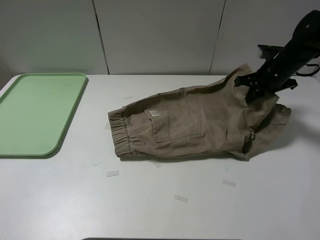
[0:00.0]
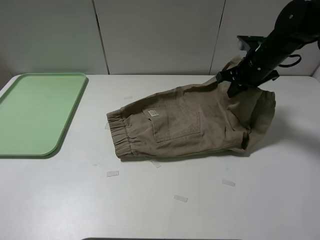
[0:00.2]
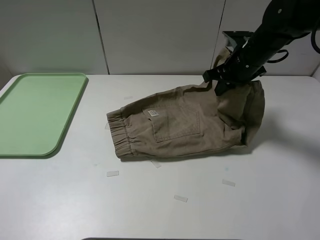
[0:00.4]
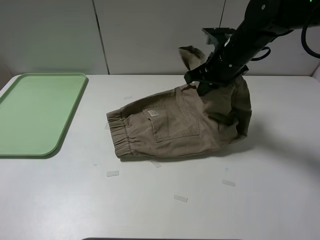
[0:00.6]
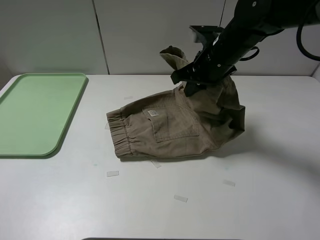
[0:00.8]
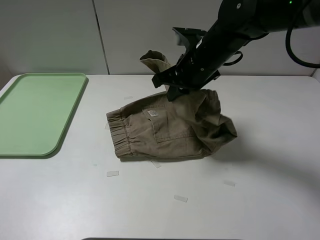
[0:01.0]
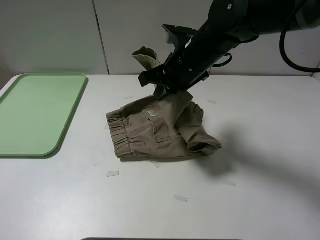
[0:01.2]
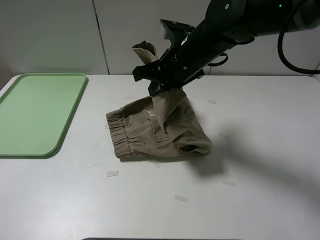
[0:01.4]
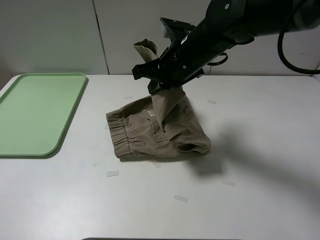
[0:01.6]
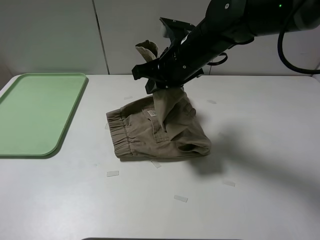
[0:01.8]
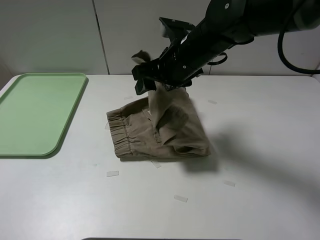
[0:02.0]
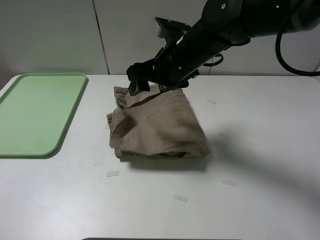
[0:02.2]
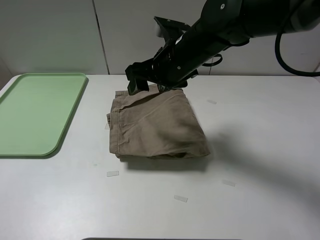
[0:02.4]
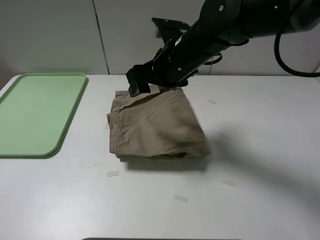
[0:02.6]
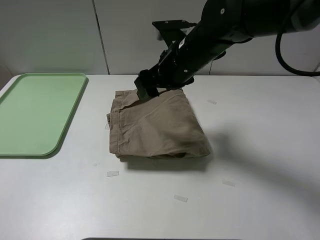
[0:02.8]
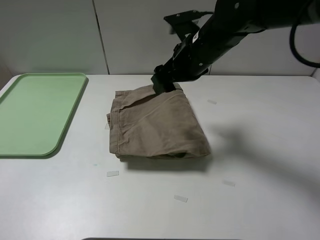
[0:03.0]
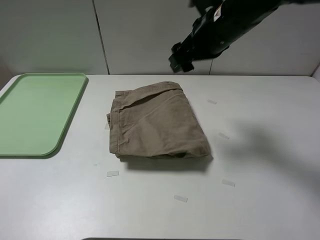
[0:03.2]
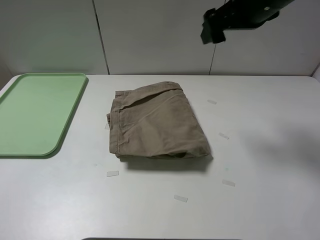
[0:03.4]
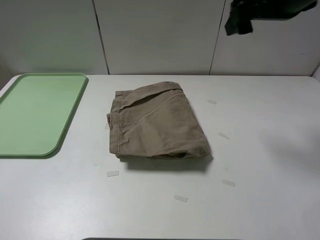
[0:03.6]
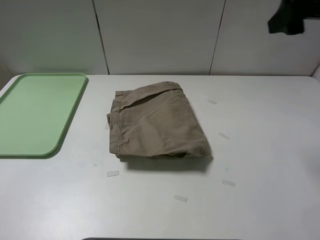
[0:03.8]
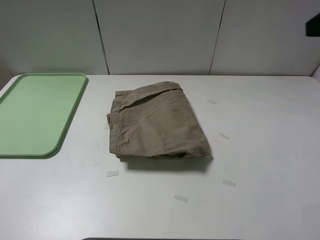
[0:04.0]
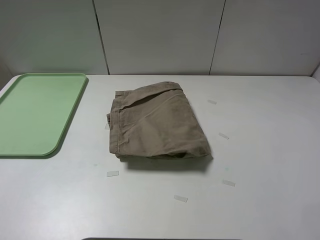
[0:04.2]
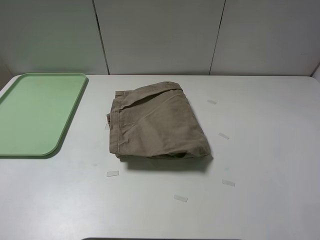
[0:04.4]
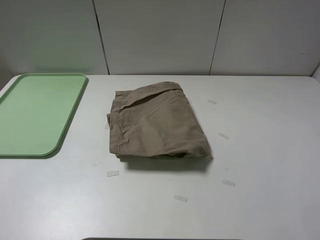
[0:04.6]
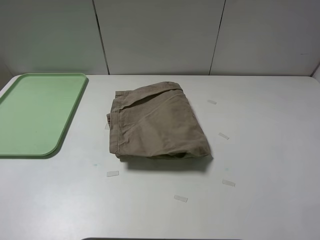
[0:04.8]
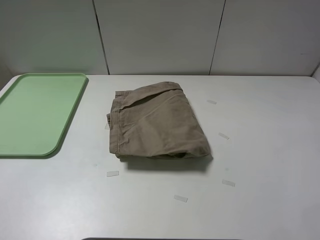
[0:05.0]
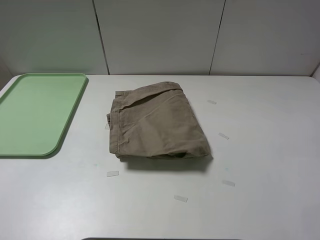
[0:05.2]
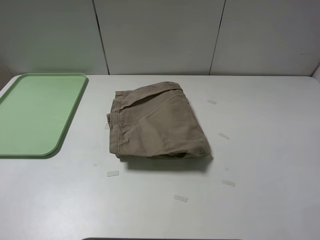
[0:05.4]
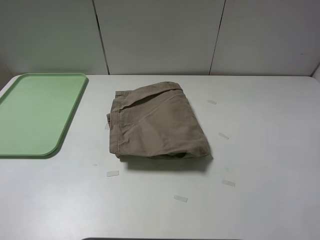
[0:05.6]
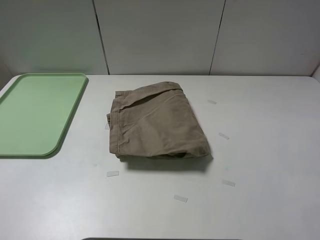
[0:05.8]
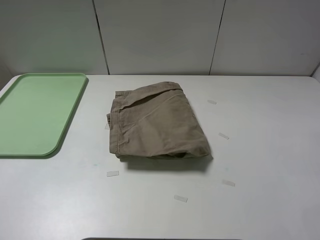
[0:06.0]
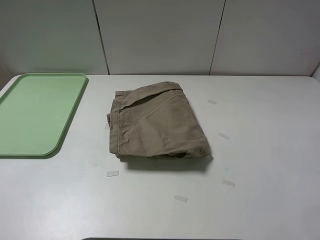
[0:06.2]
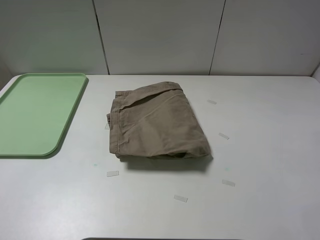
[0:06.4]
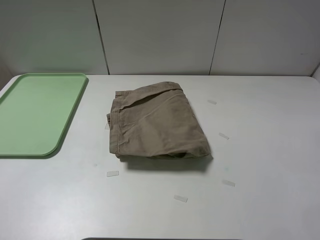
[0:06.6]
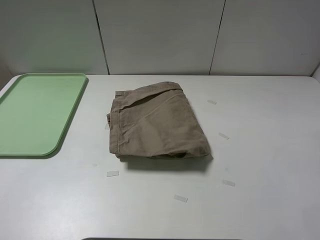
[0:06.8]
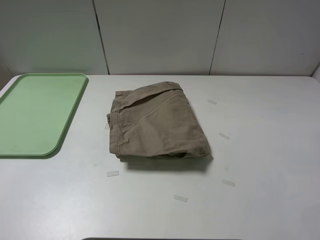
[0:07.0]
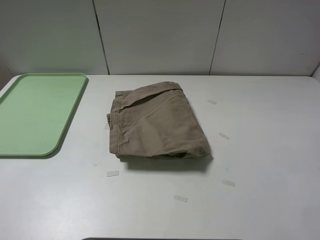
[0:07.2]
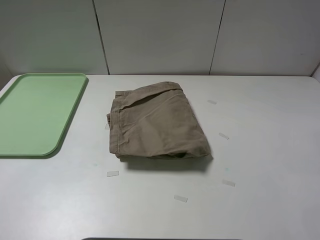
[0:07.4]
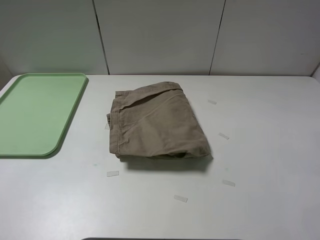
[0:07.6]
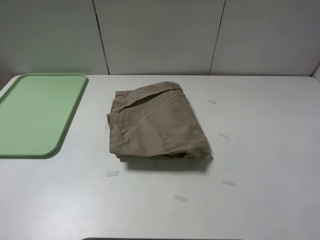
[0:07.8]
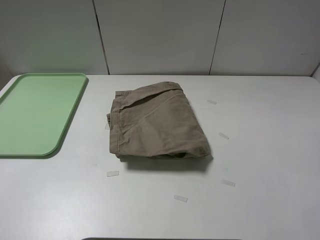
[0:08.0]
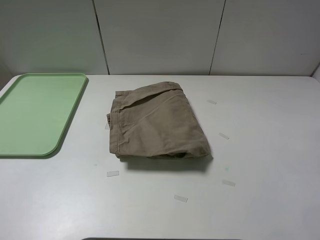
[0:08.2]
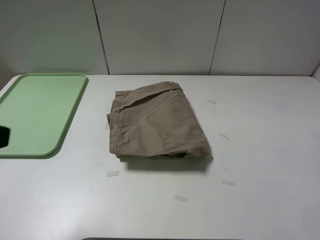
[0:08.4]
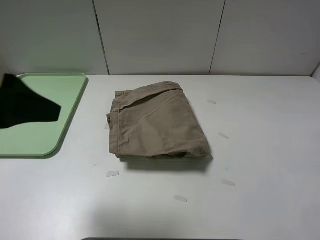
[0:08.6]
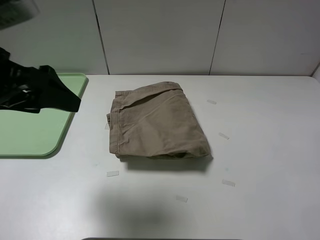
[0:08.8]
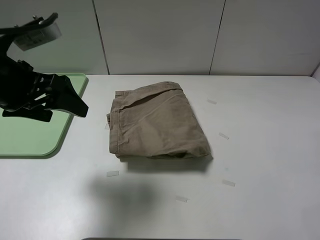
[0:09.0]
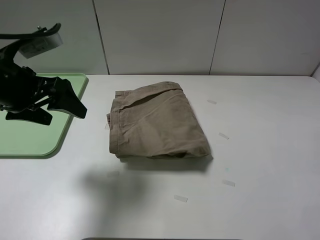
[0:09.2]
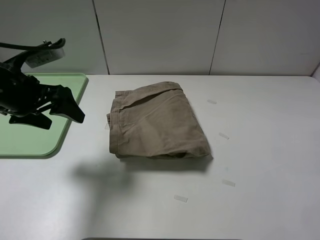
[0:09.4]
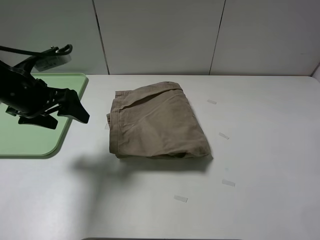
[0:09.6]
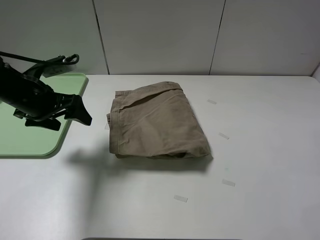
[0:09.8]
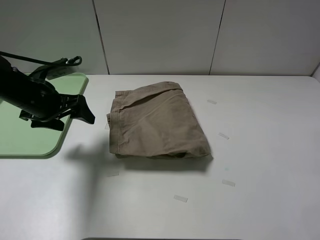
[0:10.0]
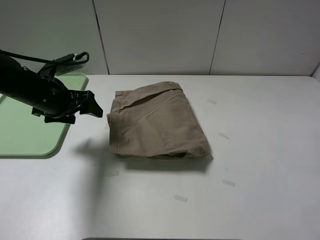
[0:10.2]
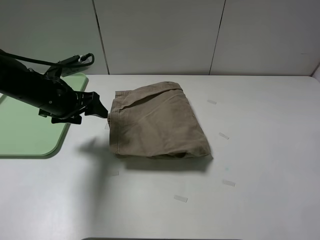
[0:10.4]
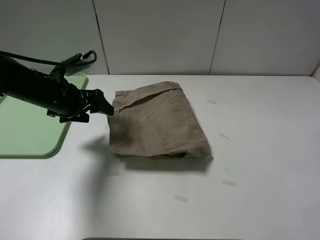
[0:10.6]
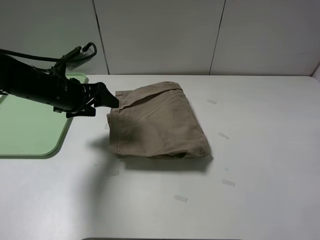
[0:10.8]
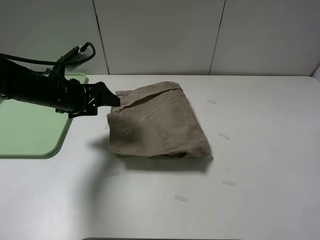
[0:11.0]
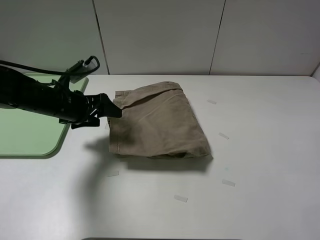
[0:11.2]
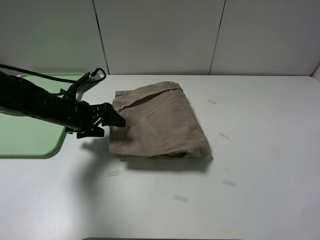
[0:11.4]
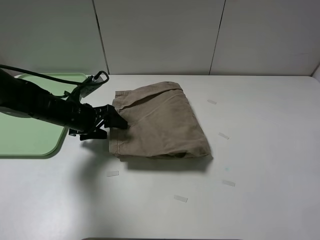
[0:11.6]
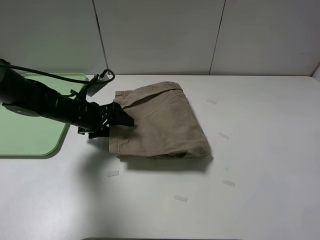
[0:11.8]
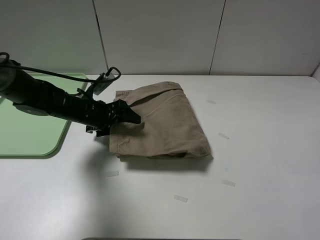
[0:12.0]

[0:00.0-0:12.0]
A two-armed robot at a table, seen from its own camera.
Task of the whole recording: fold the khaki jeans in half with two grippers, then fold them in half again, and use the left claw to place the folded fold khaki jeans on the tray.
Step, 0:00.0 to 0:02.2: Fold the khaki trousers from right to left with the right gripper.
0:00.0 to 0:01.6: The right gripper heads to the left, covering approximately 20 cm.
0:01.6 to 0:03.0: The right gripper opens.
0:03.0 to 0:04.4: The right gripper goes about 35 cm backward, to the right and upward.
0:06.0 to 0:07.6: Neither gripper changes place.
0:07.6 to 0:09.0: The left gripper moves forward, some 25 cm.
0:09.0 to 0:10.4: The left gripper is displaced downward and forward by roughly 15 cm.
0:10.4 to 0:12.0: The left gripper heads downward, covering about 10 cm.

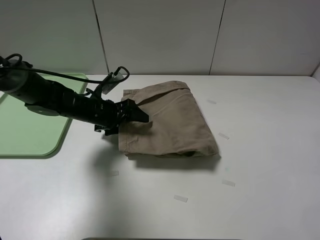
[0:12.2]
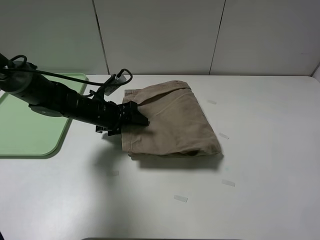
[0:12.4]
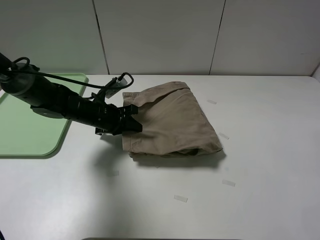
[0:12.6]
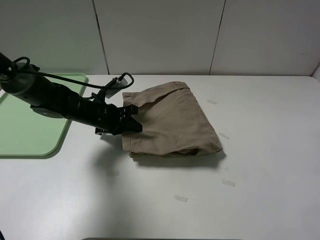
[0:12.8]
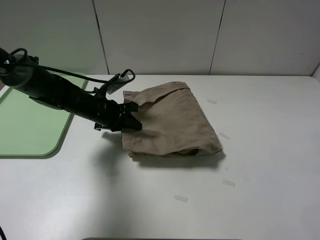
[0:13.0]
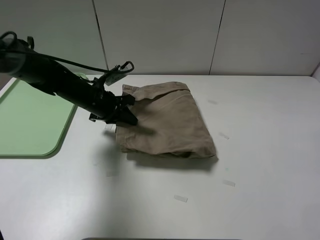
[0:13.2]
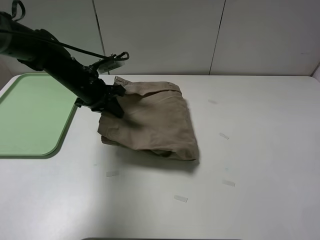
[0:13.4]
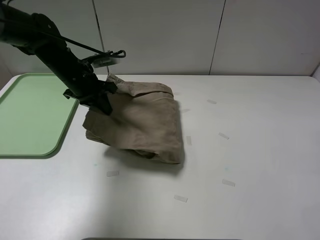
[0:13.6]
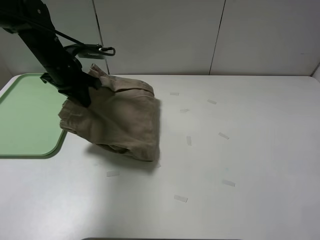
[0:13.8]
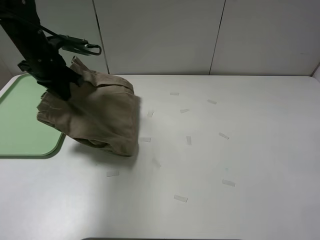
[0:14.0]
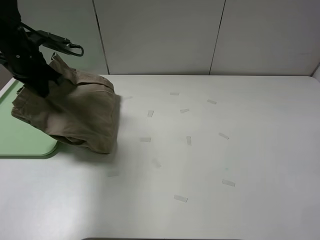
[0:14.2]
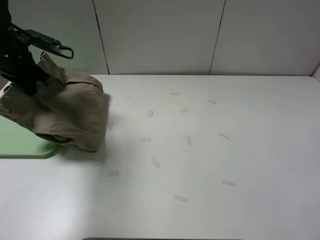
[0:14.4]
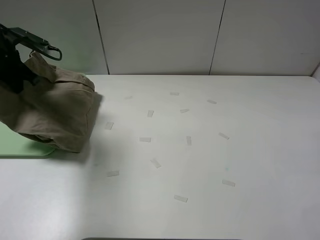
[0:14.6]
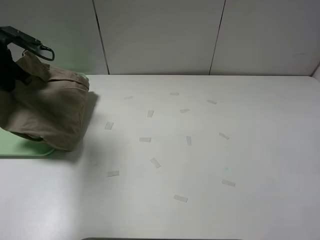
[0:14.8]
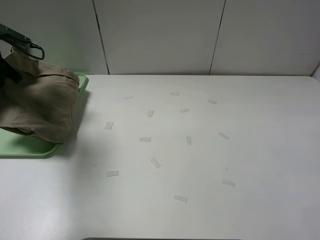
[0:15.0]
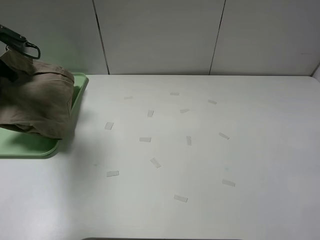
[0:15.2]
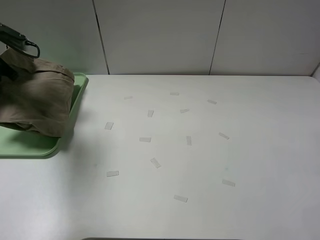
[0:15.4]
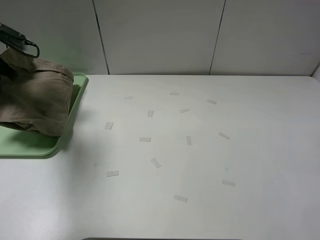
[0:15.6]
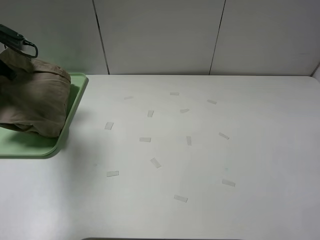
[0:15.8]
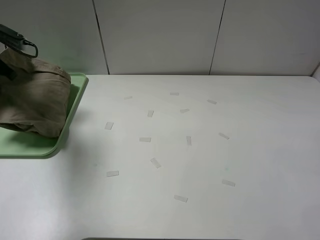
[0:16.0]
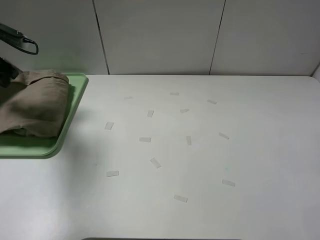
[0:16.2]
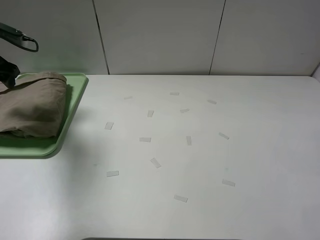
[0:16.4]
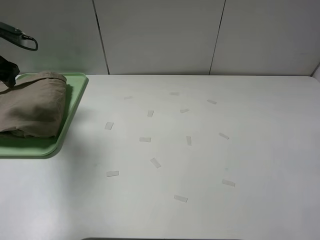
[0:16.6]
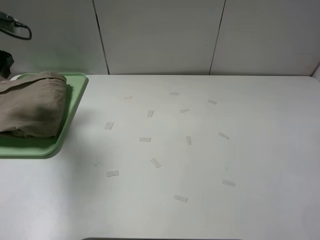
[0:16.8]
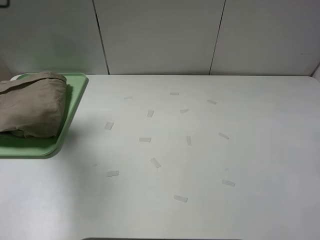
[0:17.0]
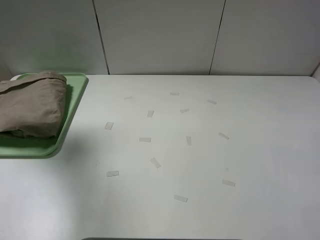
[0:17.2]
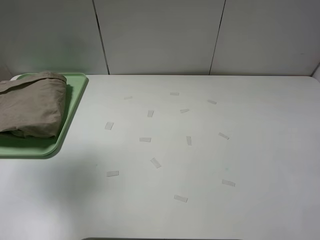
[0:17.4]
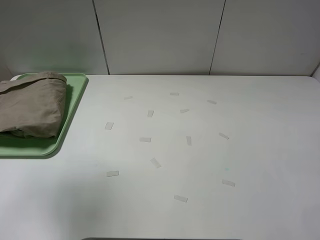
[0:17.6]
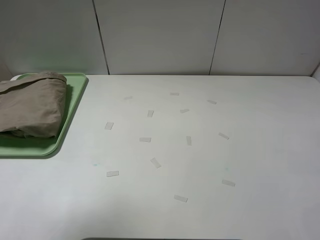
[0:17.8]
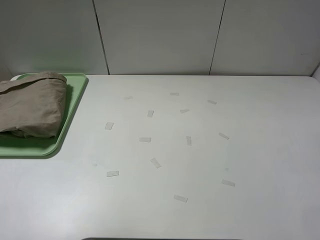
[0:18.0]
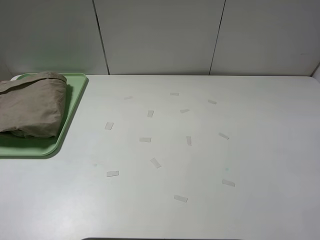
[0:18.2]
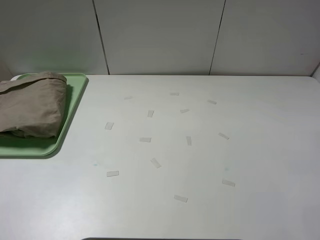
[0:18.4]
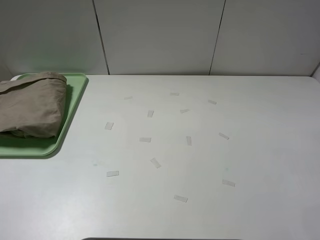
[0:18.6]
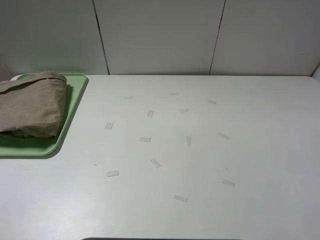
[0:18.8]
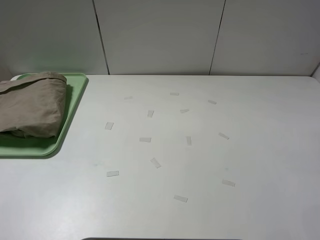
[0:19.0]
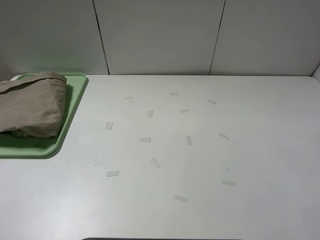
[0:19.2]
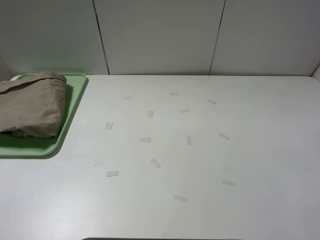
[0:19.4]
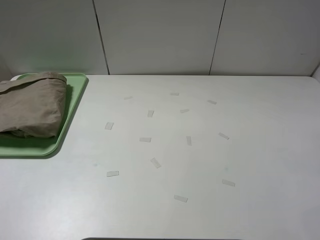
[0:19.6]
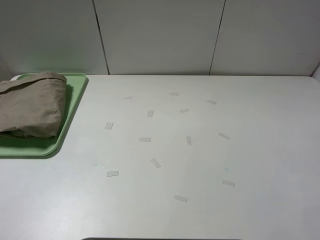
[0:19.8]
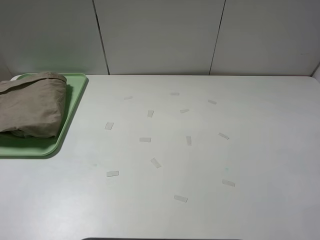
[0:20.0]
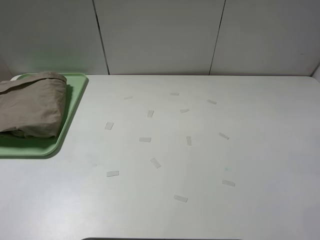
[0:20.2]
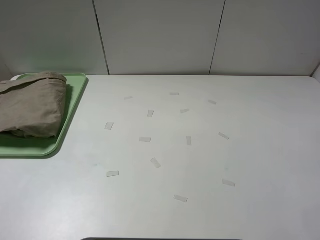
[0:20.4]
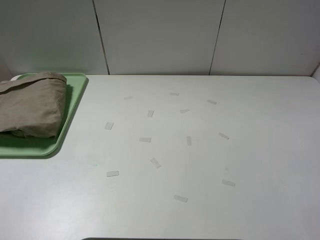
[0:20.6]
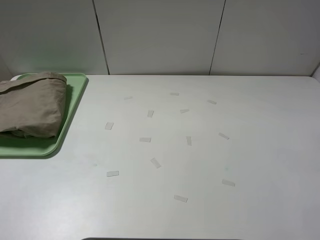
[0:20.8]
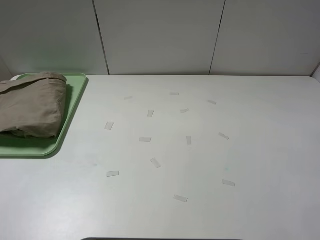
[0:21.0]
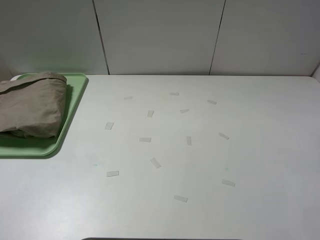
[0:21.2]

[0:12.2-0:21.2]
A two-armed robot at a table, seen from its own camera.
Task of the whole recording: fold the khaki jeans in half with two grippers, then fold them in half again, and use the left claw to place the folded fold khaki jeans on the tray.
Step, 0:12.8 to 0:16.2: Place the folded khaki trousers on the green tray with the left gripper.
0:12.2 to 0:13.8: The left gripper heads upward, to the left and forward, covering approximately 15 cm, and closes up.
0:13.8 to 0:15.2: The left gripper travels to the left by some 15 cm.
0:15.2 to 0:16.6: The left gripper opens its fingers.
0:16.6 to 0:18.2: The left gripper moves backward and upward, some 40 cm.
0:19.8 to 0:21.2: Both grippers stay put.
